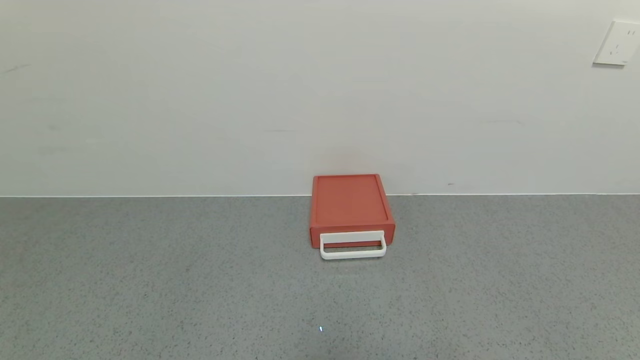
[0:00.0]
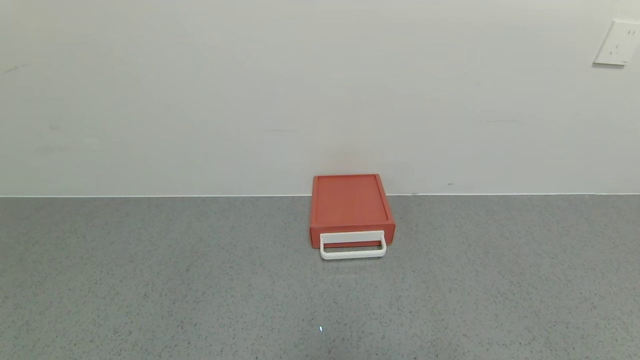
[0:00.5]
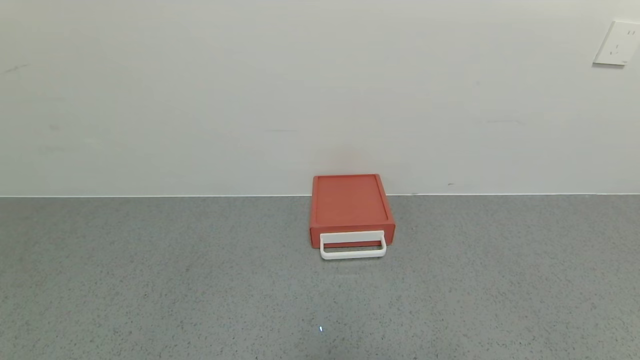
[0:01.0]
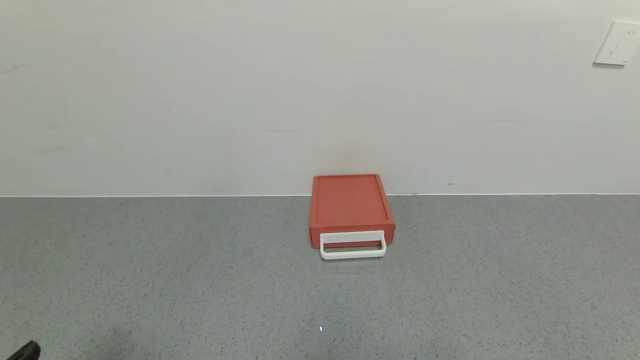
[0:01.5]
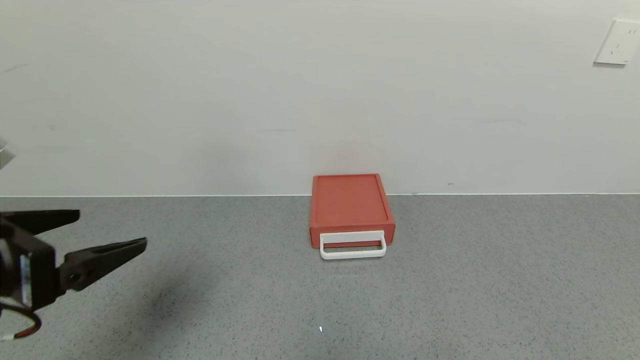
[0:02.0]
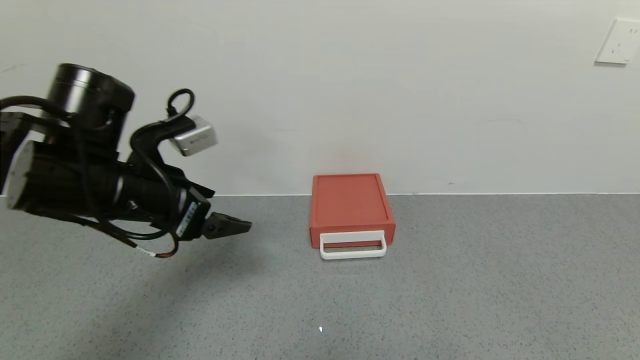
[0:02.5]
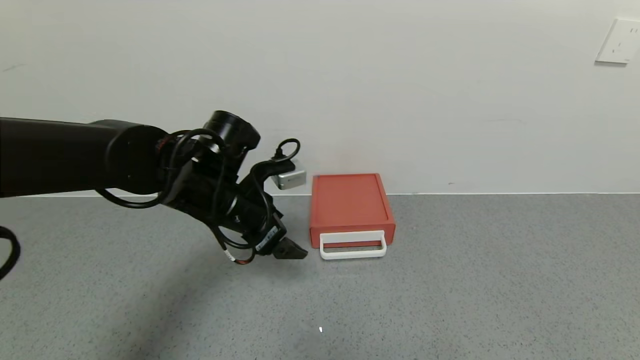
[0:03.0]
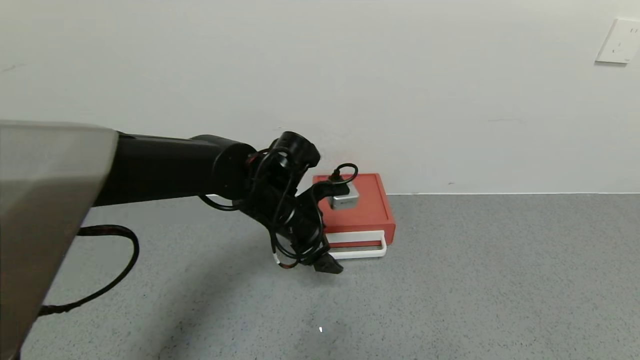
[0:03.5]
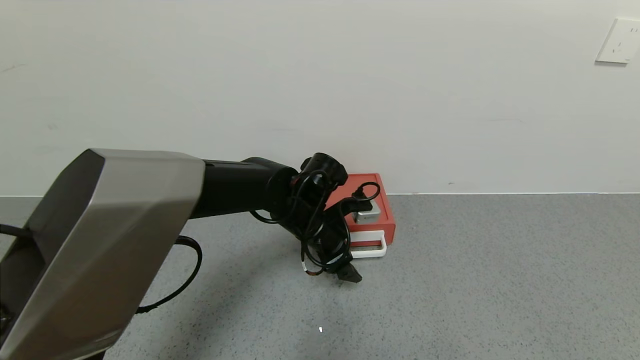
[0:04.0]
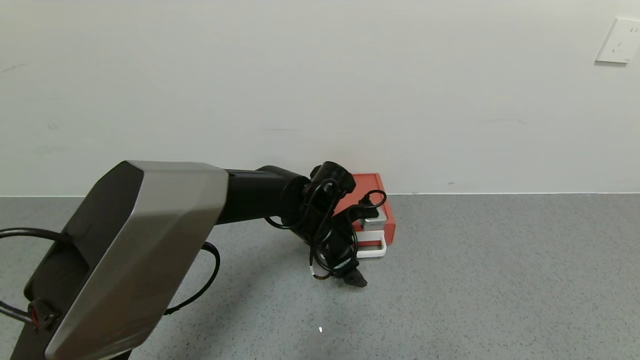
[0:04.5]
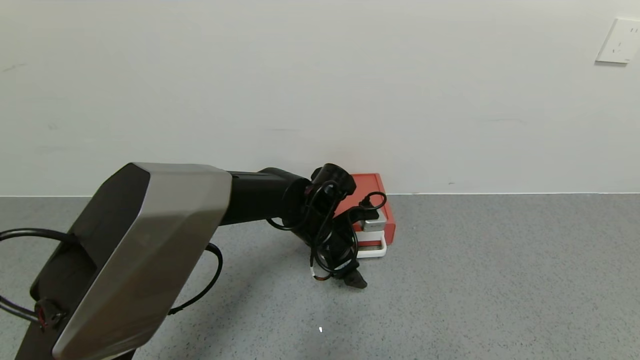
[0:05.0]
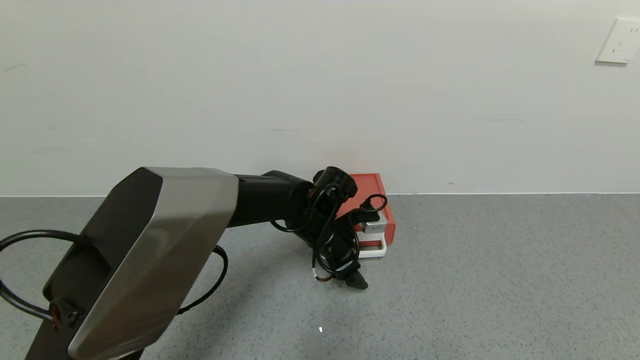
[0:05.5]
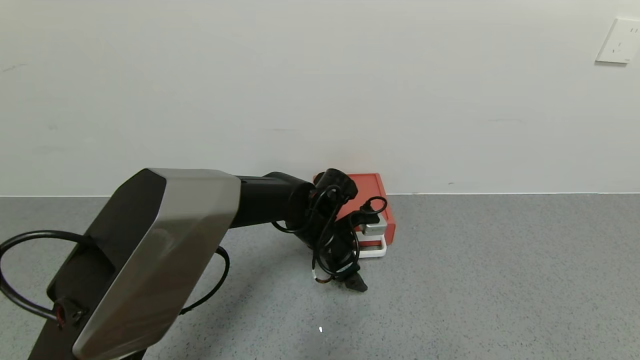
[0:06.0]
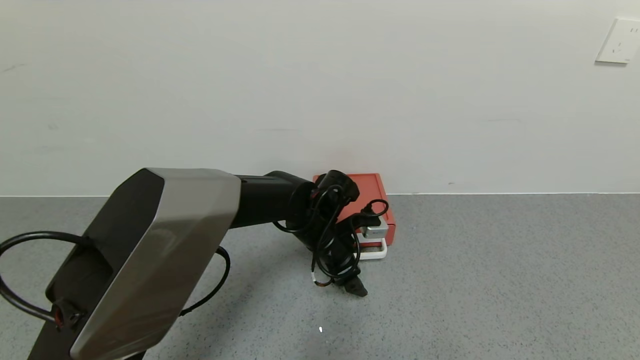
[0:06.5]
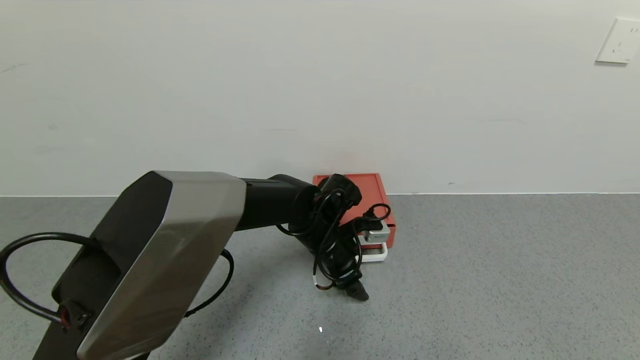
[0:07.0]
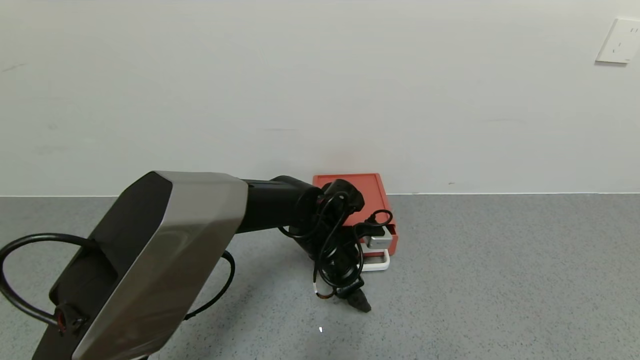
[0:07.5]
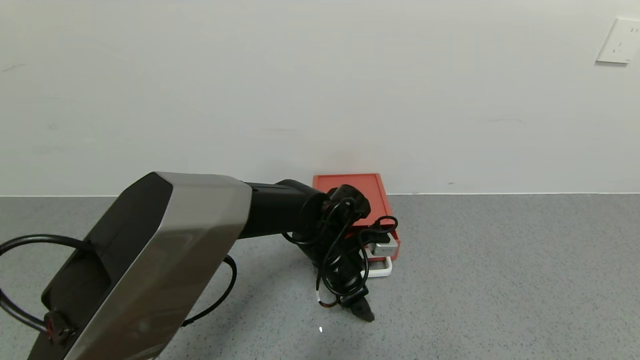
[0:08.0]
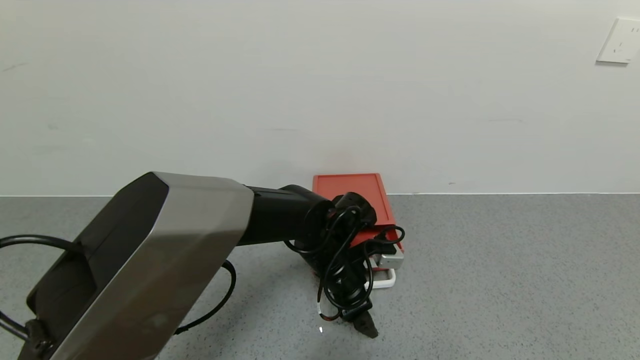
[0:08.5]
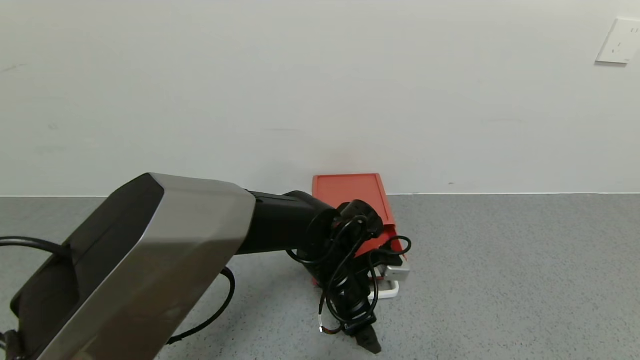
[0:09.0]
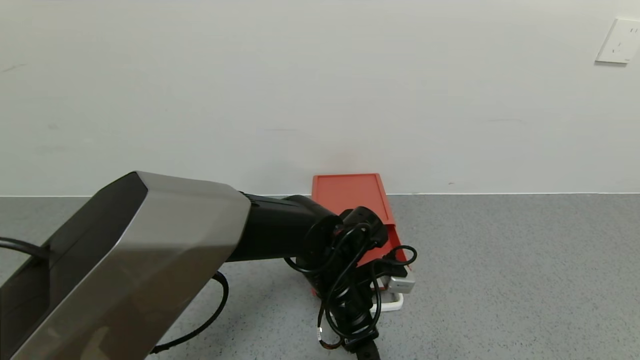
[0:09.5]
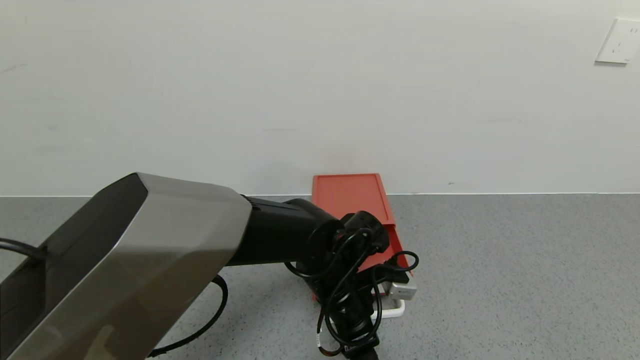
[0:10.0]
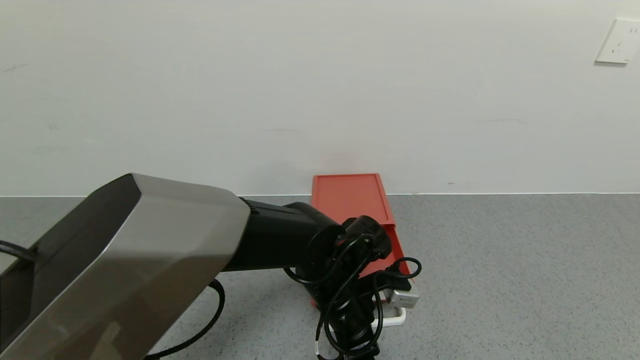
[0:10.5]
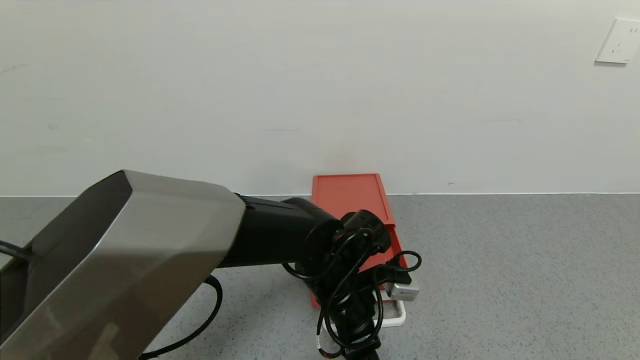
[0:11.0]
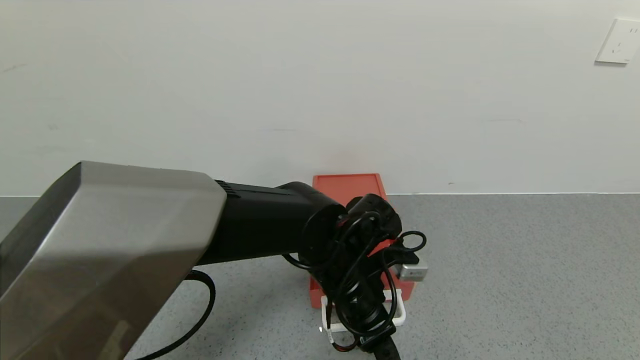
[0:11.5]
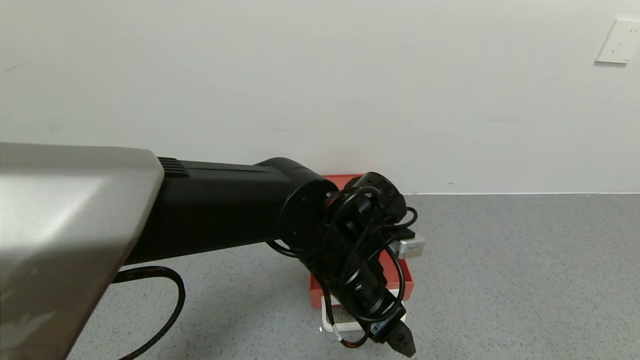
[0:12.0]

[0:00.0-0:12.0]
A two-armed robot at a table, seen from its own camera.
Task of the whole recording: use the gripper to open the drawer and close the red drawer.
Step, 0:00.0 to 0:11.5: Open the red drawer with the left gripper.
0:00.0 to 0:02.0: The left gripper goes roughly 25 cm upward and forward.
0:02.0 to 0:04.0: The left gripper shifts roughly 35 cm to the right, forward and downward.
0:04.0 to 0:08.0: The grippers make only small movements.
0:08.0 to 0:10.0: The left gripper heads backward, covering about 5 cm.
0:10.0 to 0:12.0: The left gripper moves upward, about 5 cm.

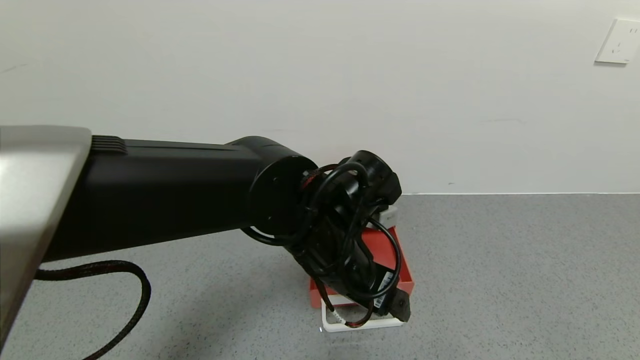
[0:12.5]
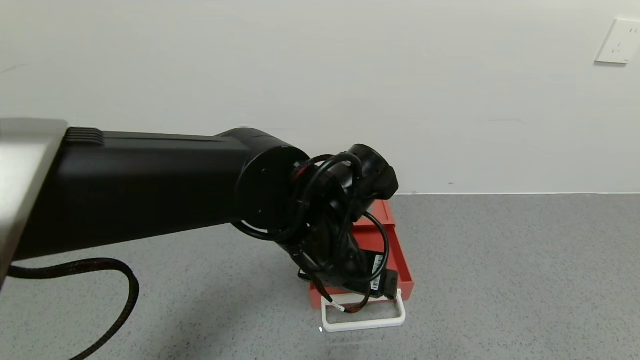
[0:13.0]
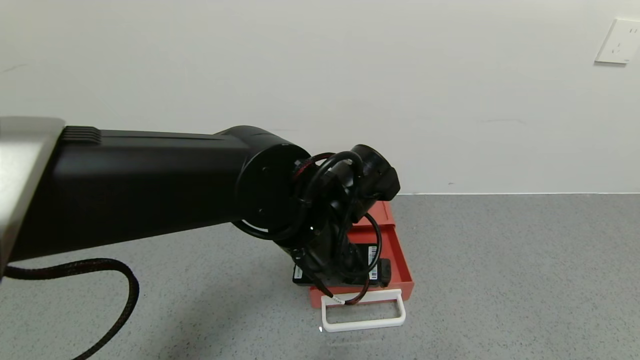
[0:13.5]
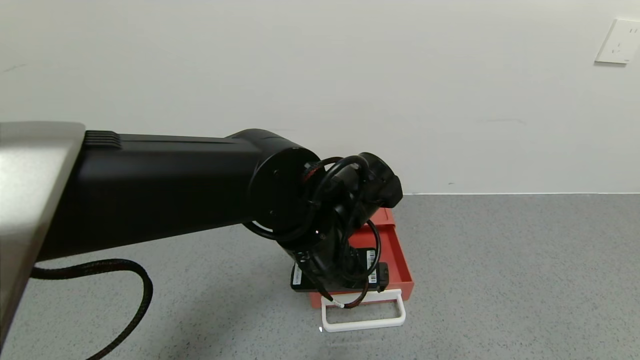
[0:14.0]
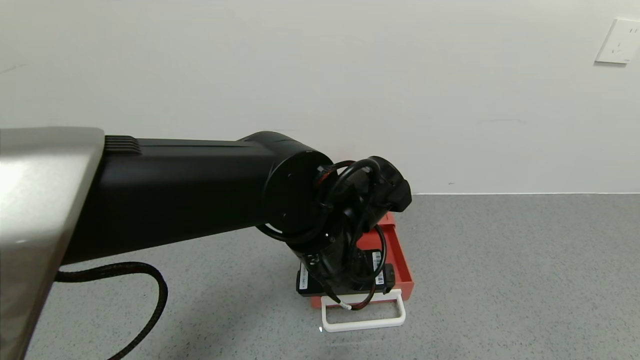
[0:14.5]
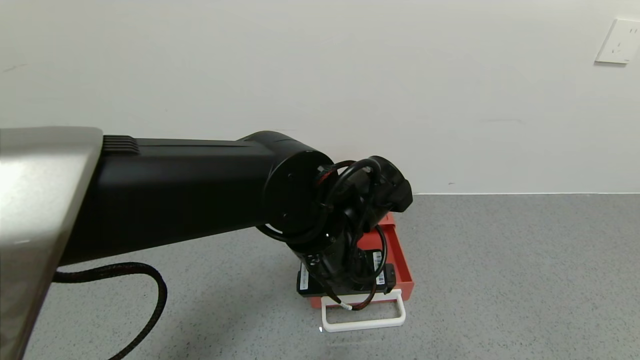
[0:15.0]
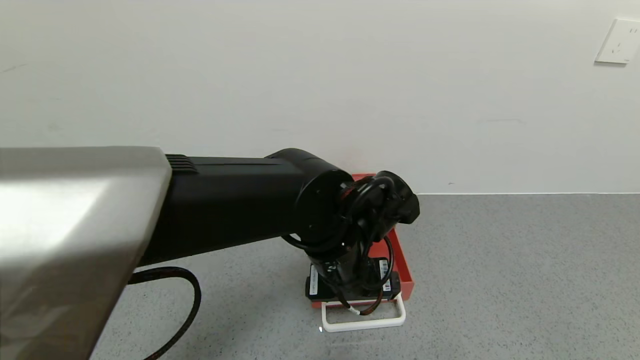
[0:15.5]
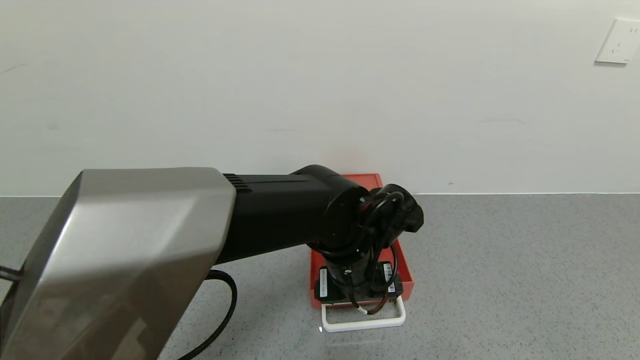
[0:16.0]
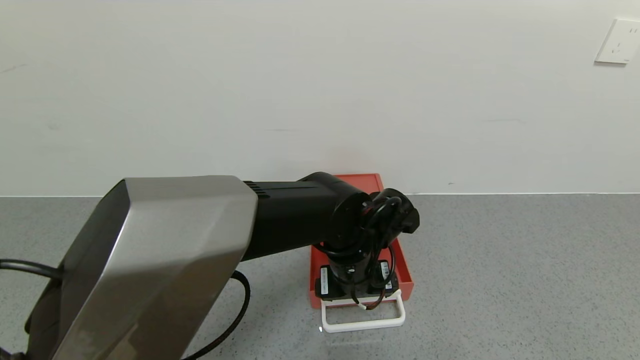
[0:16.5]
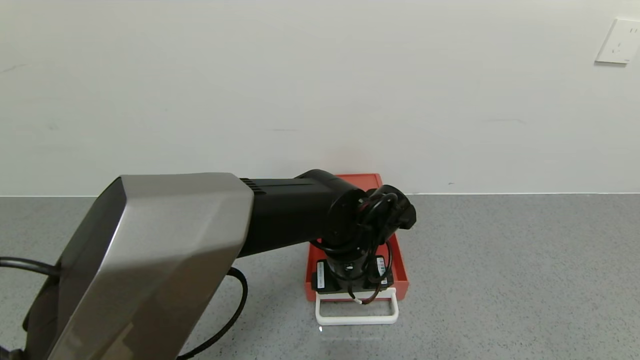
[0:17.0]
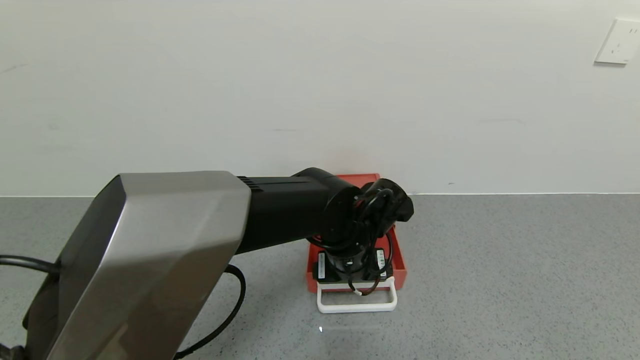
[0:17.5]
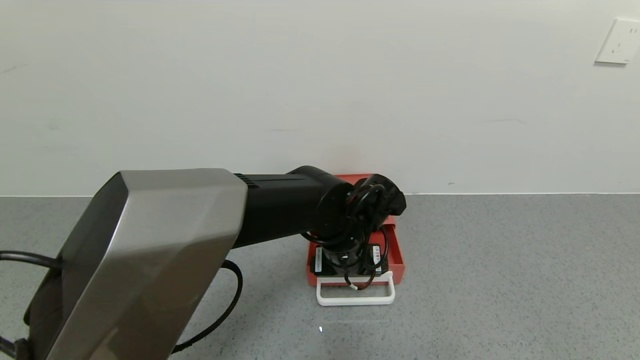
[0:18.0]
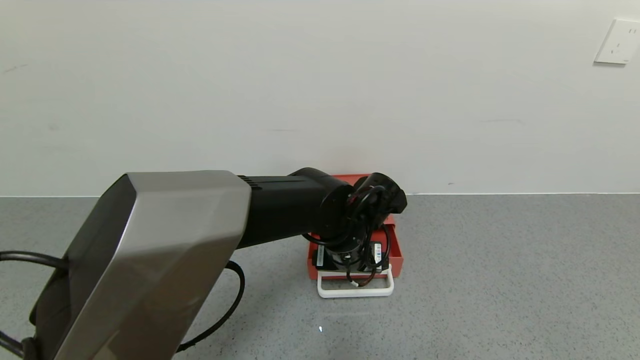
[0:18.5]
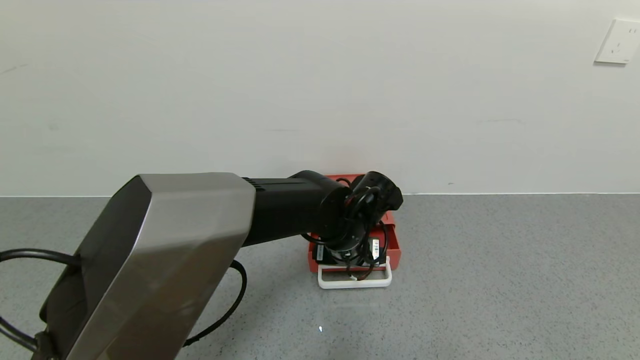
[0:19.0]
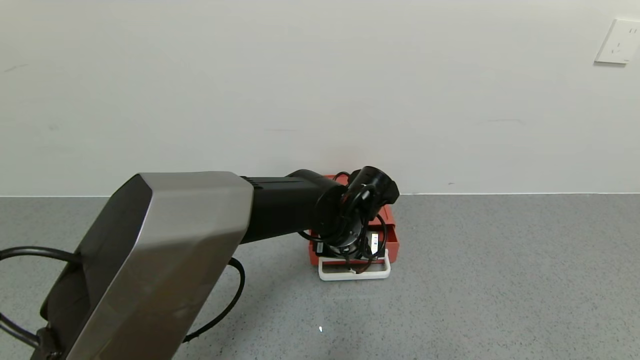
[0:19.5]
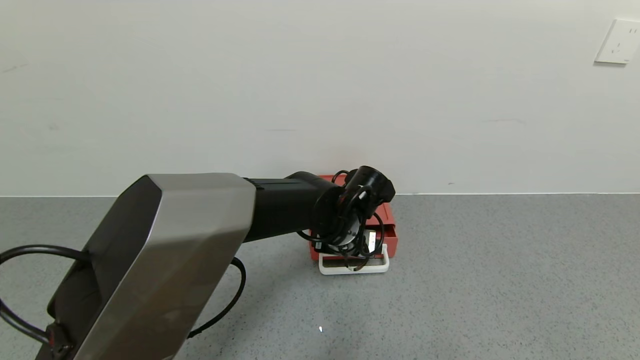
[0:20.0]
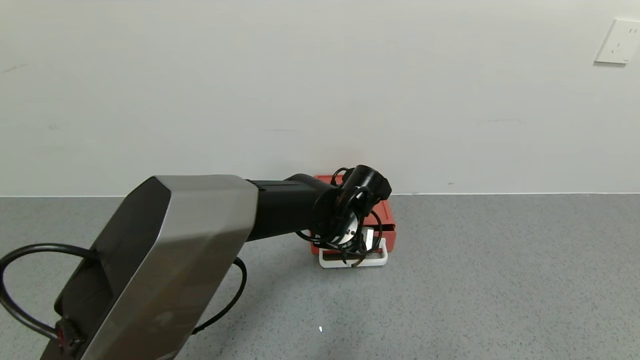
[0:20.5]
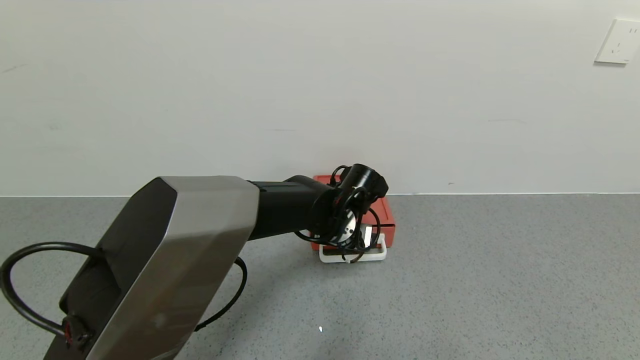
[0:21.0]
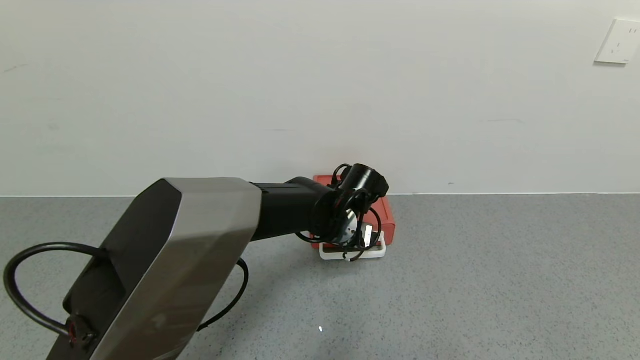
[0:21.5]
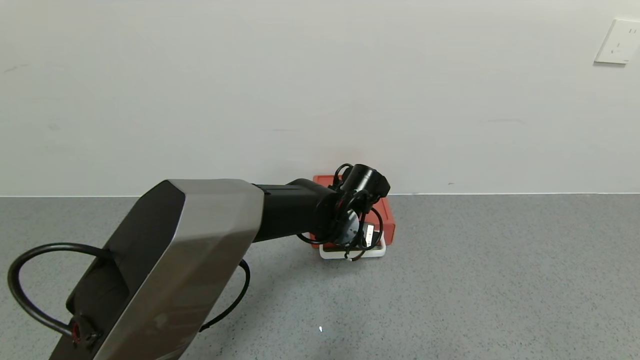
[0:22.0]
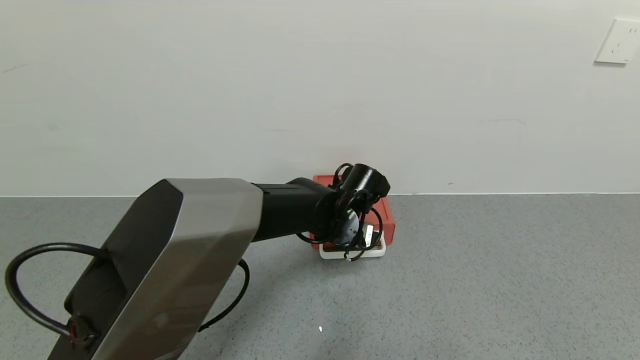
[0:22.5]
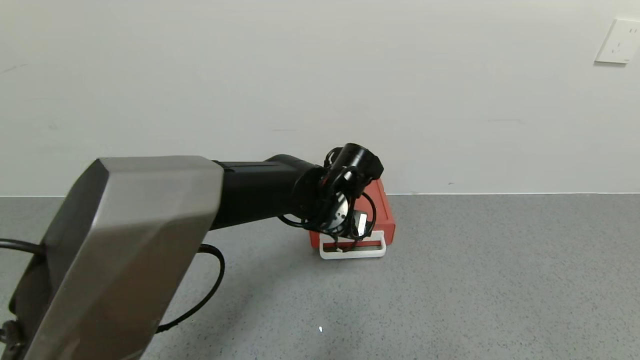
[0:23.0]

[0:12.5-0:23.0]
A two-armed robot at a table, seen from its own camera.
Task of the whole recording: use the gripper to open the drawer and close the red drawer.
0:14.5 to 0:16.5: The left gripper heads downward, covering approximately 5 cm.
0:16.5 to 0:19.0: The grippers move only a little.
0:19.0 to 0:23.0: The grippers make only small movements.
